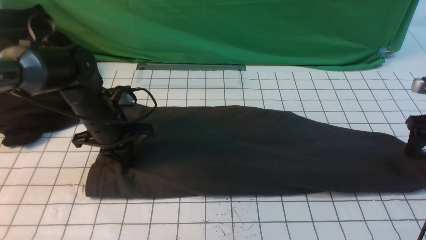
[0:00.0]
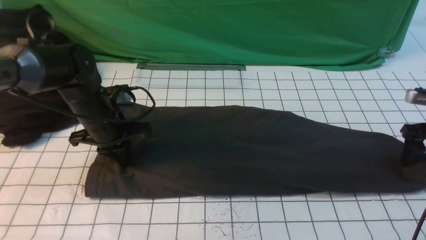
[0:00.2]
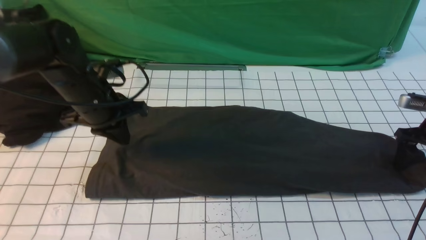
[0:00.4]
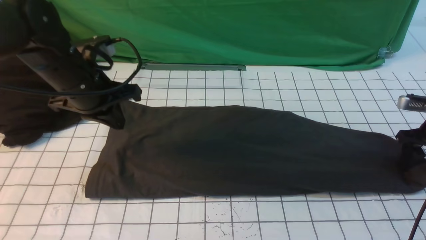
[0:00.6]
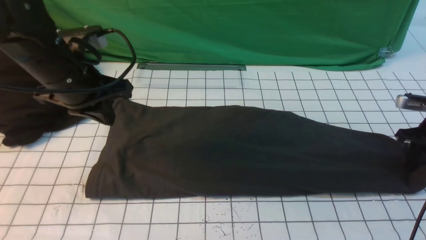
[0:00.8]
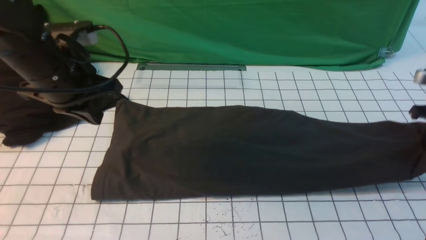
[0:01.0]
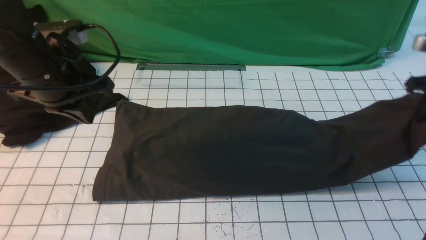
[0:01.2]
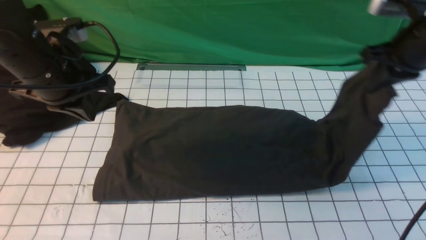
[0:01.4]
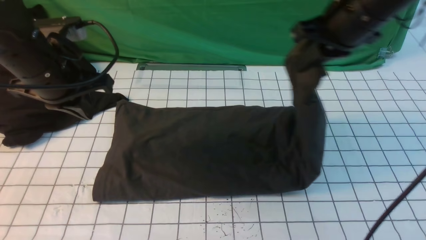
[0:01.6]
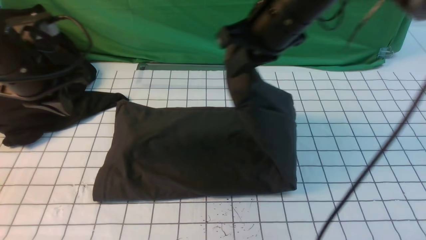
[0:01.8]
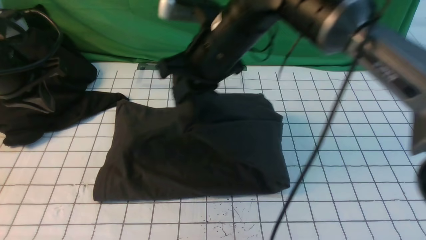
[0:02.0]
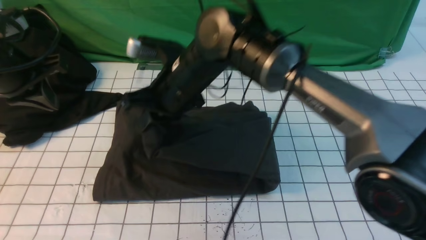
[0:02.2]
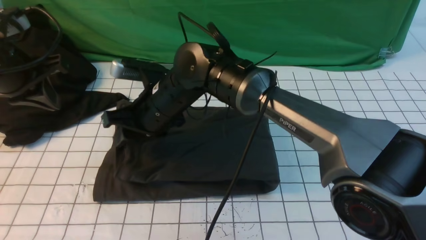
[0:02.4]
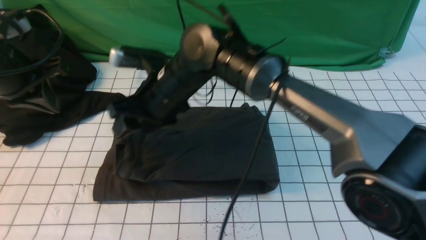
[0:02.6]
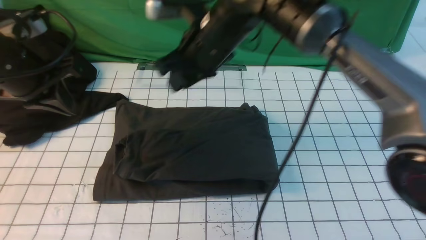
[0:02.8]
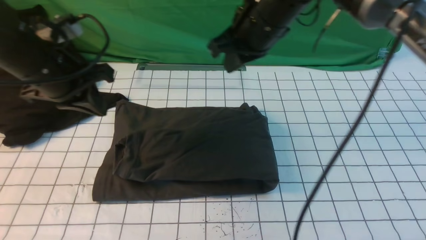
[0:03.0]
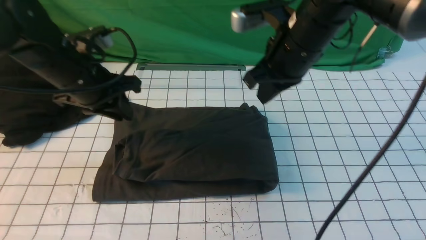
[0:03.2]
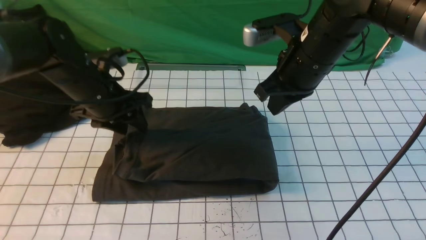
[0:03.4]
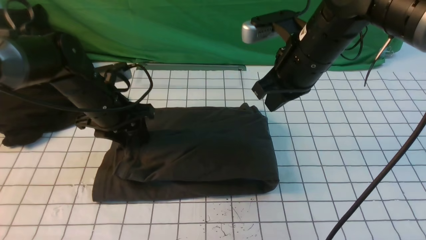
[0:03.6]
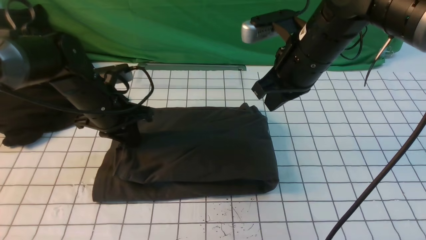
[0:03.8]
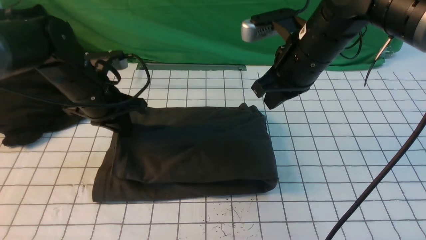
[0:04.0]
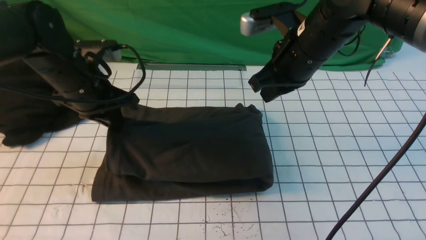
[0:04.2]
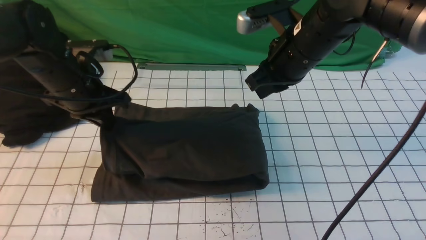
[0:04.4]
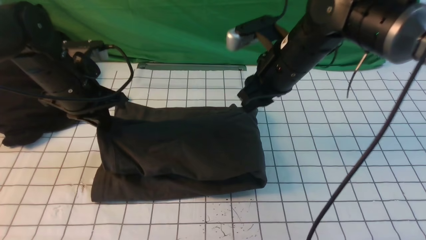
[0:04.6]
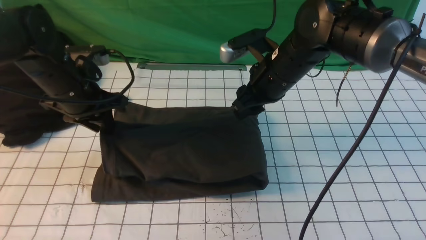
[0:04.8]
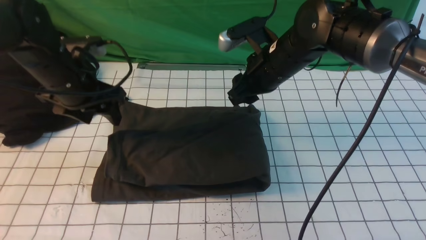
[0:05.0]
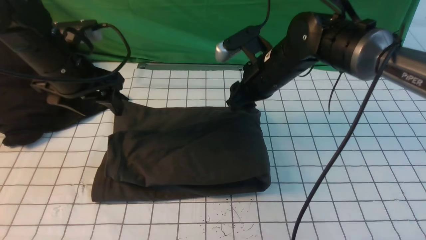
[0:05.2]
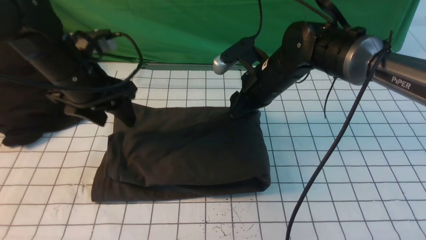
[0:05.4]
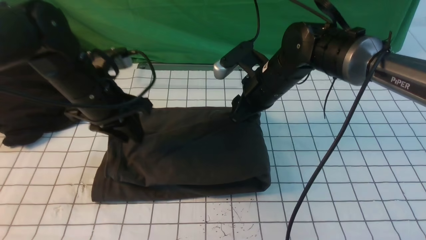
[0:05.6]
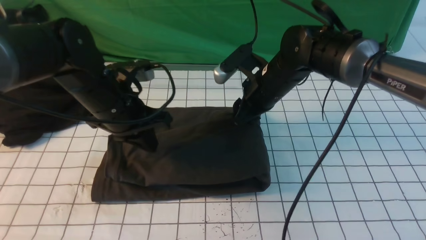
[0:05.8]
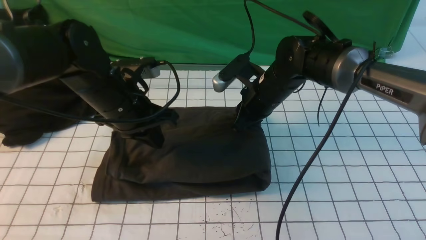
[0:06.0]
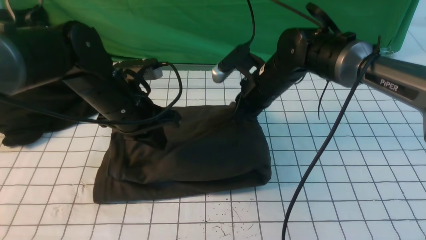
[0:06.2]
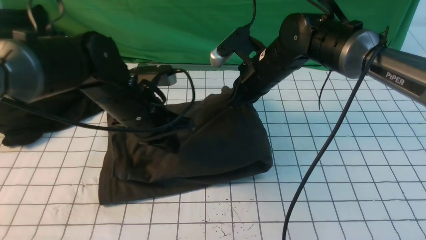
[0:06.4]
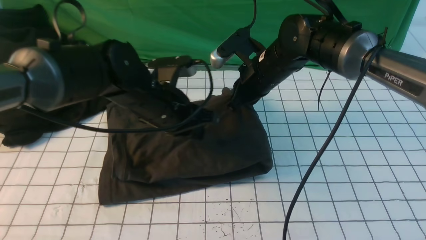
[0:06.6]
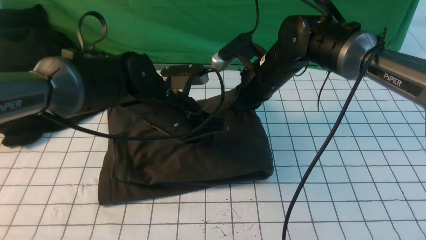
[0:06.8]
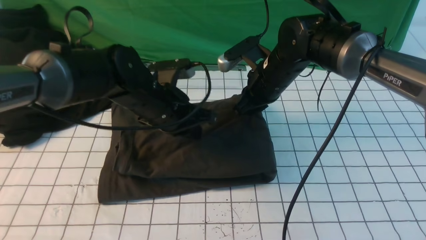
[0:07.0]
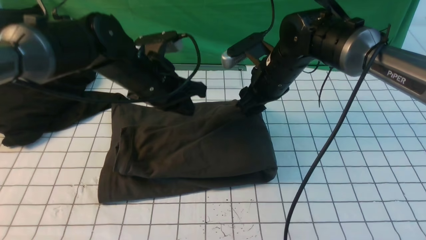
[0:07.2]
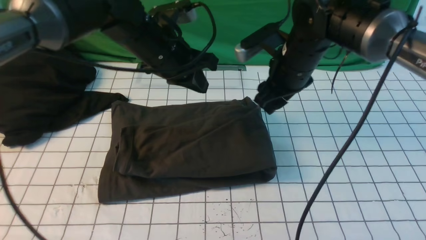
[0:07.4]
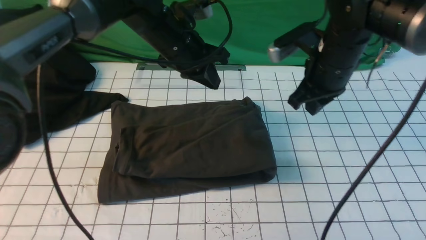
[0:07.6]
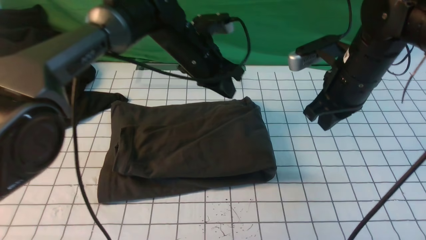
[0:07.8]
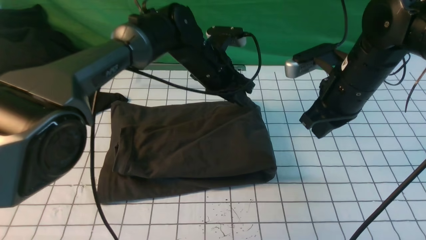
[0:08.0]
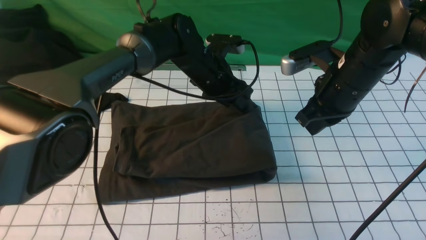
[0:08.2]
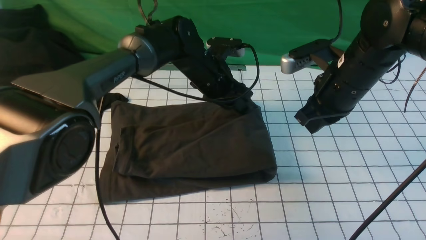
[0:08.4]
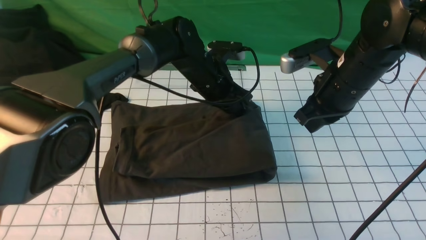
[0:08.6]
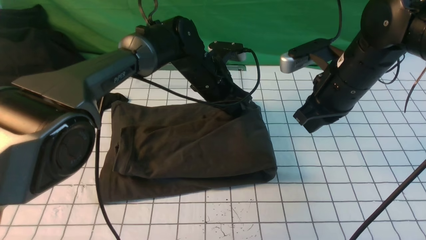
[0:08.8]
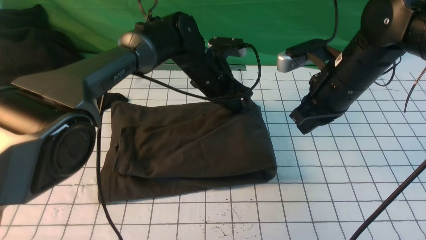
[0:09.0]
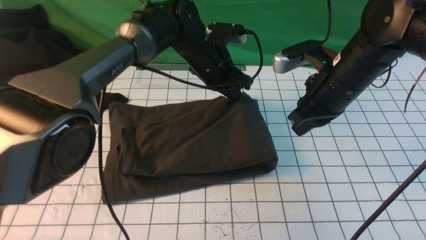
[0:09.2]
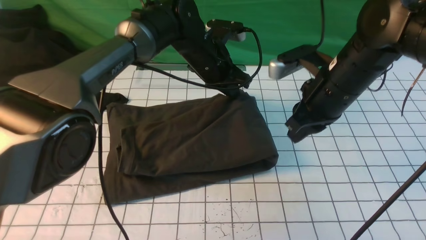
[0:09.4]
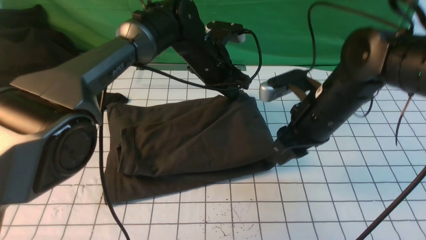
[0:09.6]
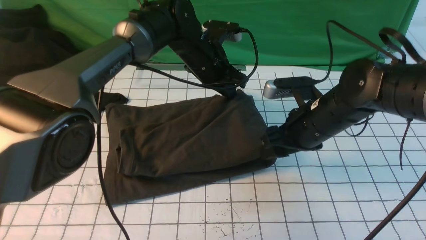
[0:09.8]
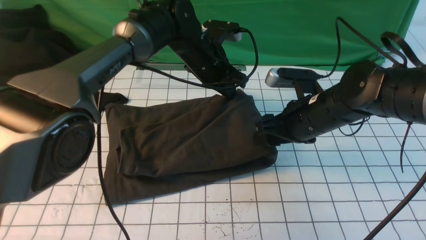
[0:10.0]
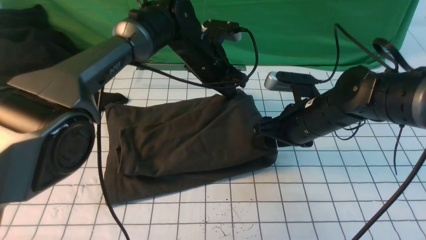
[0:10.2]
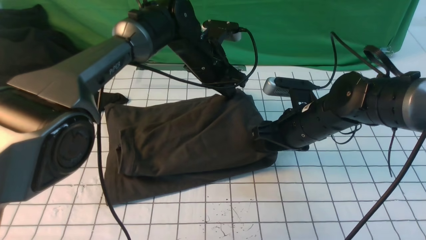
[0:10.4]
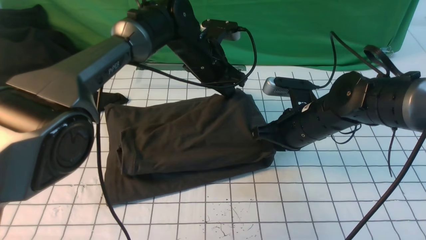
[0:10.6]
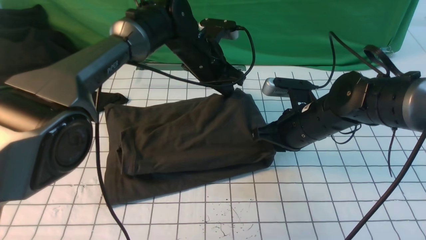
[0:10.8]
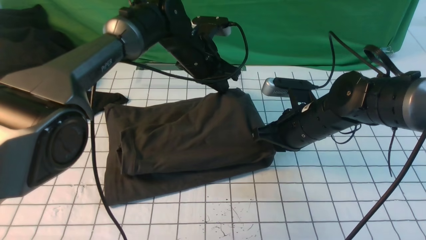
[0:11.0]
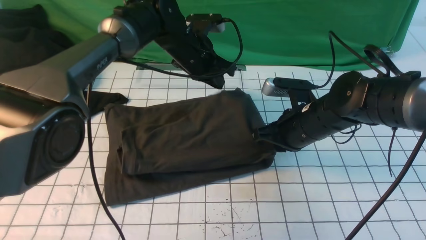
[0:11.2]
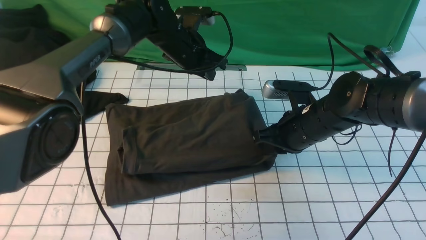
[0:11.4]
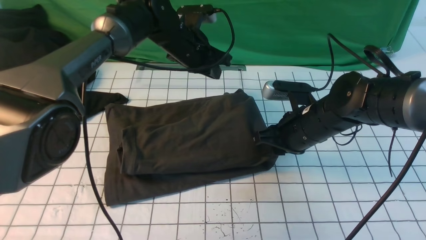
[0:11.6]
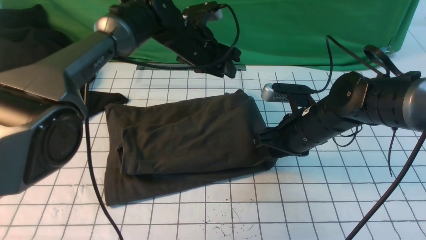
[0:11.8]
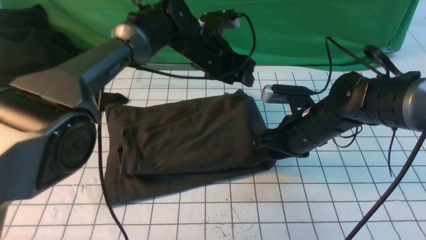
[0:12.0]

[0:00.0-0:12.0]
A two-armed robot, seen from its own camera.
Step, 0:01.2 to 0:02.6: use the right arm to drag the right edge of the fabric to the left and folds it over the left edge.
0:00.0 to 0:01.6: The right gripper is displaced to the left and upward by about 30 cm, and closes, while the left gripper heads upward, covering some 15 cm.
0:01.6 to 0:03.0: The right gripper travels to the left by approximately 10 cm, and opens, then closes again.
0:03.0 to 0:04.4: The left gripper opens, then closes again. The right gripper moves approximately 5 cm.
0:04.4 to 0:06.0: The left gripper heads to the right, covering approximately 5 cm, and opens and closes again, while the right gripper goes roughly 10 cm downward, and opens and closes again.
0:06.0 to 0:07.6: The left gripper heads forward and to the right, covering approximately 10 cm. The right gripper goes approximately 10 cm to the right and upward.
0:07.6 to 0:09.0: The left gripper shifts about 5 cm downward, and opens, then closes again.
0:09.0 to 0:10.4: The right gripper moves downward, approximately 10 cm, and opens.
0:10.4 to 0:12.0: The right gripper closes, then opens again; the left gripper opens up.

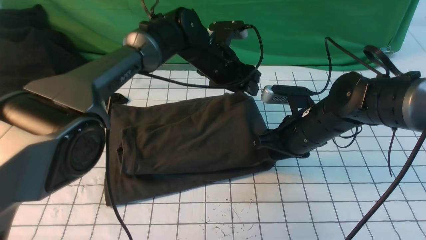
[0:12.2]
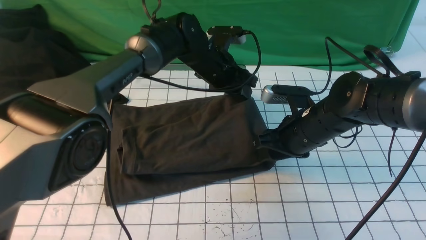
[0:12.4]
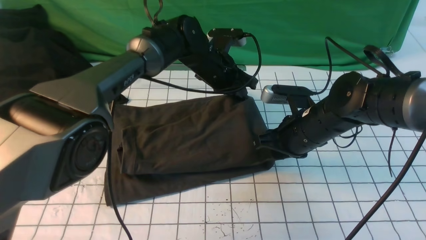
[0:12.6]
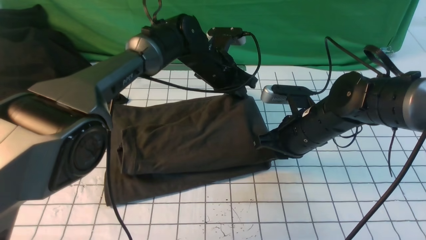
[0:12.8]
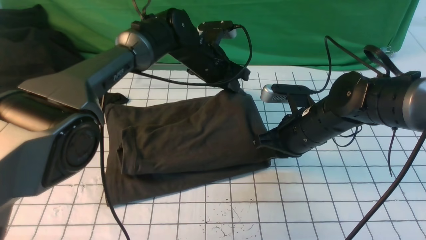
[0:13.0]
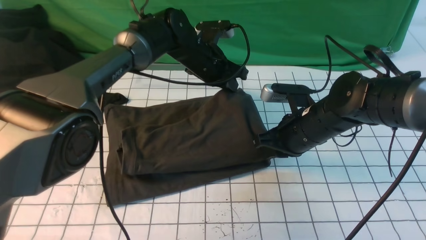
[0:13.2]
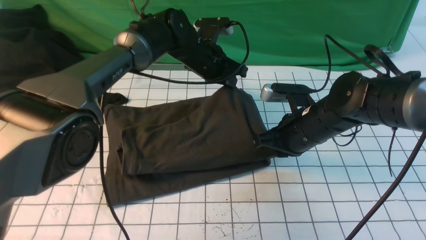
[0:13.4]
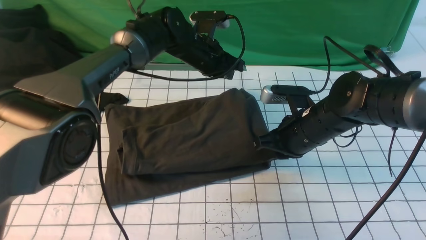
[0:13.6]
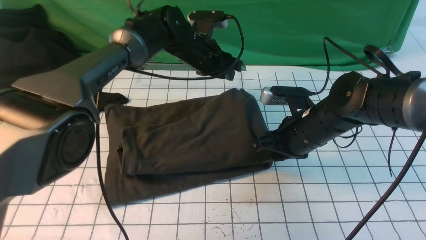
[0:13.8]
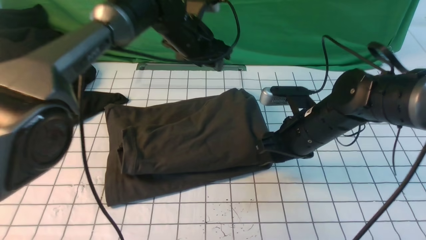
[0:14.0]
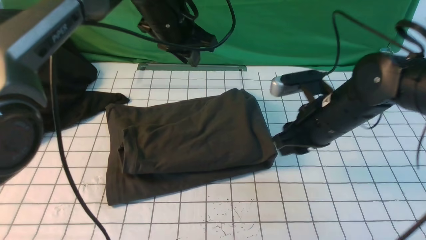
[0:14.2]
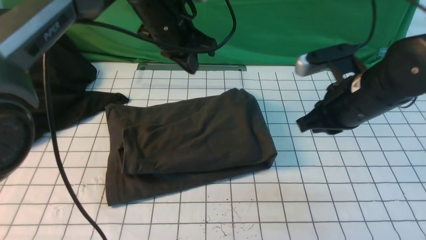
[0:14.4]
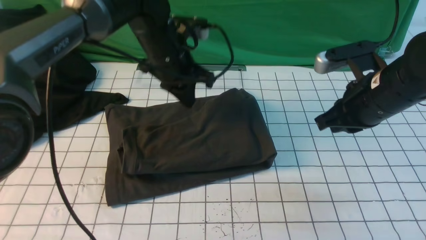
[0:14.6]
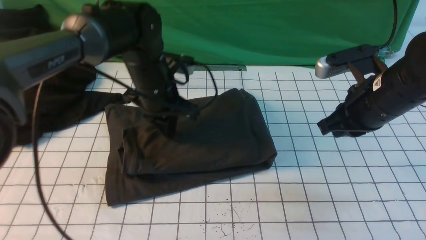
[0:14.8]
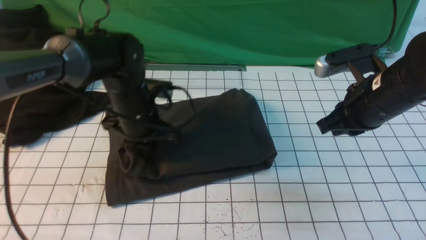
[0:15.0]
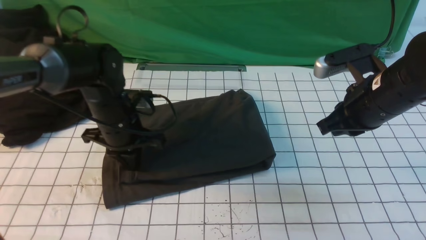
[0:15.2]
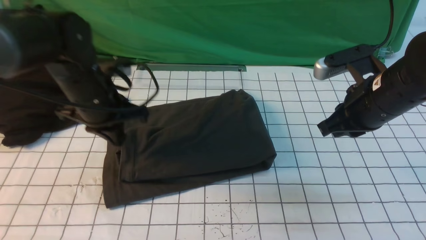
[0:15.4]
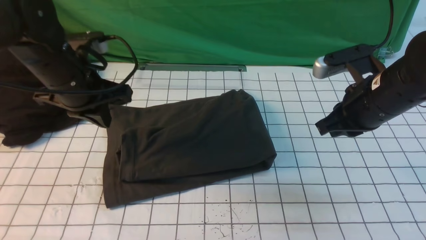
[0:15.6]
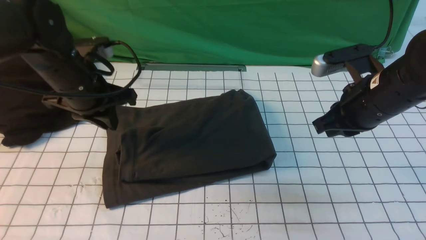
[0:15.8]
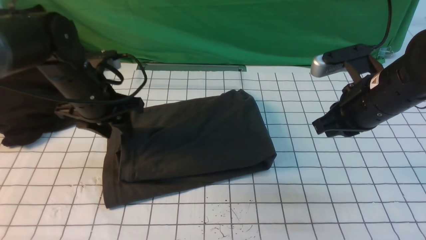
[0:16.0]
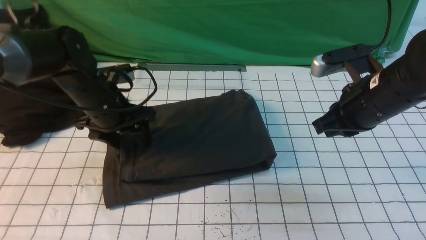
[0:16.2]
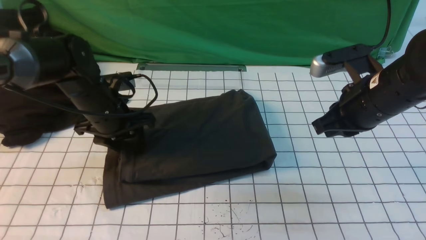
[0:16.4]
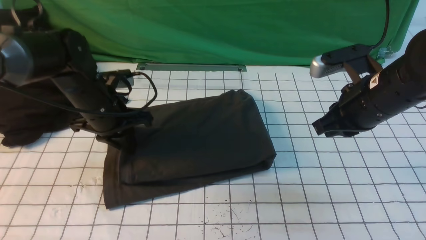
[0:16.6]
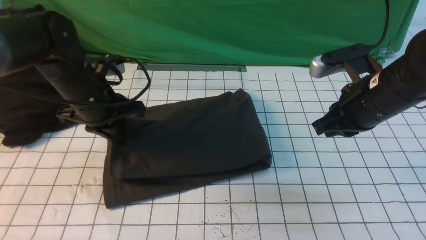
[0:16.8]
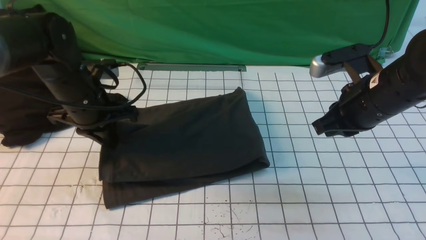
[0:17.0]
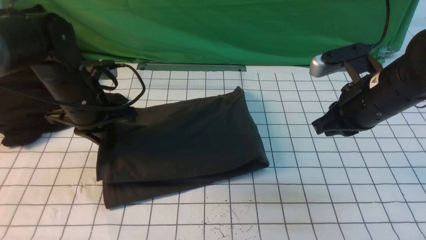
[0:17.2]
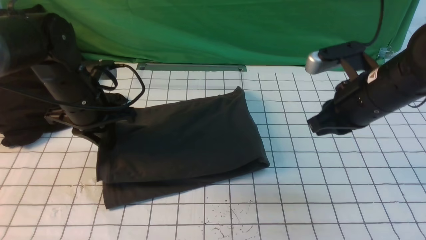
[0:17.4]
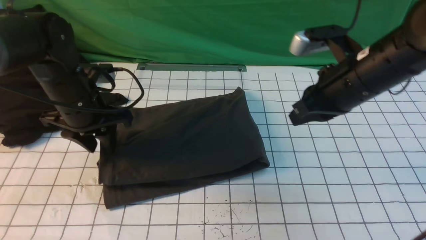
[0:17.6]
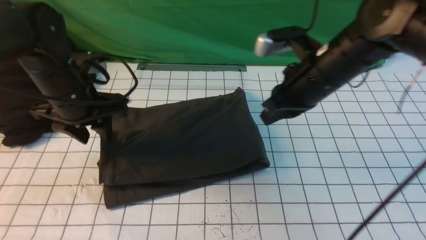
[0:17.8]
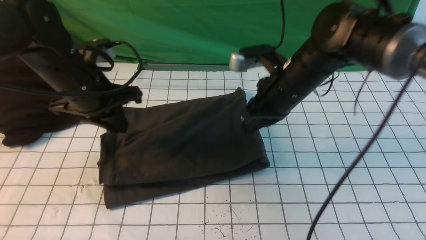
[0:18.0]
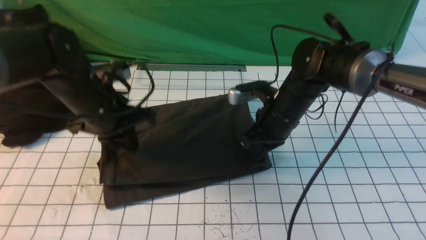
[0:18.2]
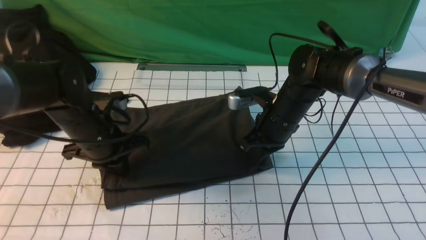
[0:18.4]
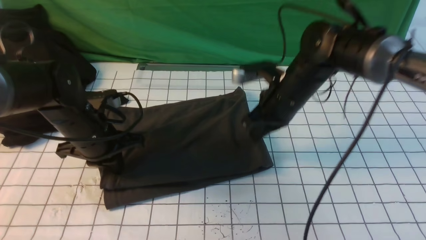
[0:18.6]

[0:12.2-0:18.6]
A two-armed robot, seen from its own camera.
0:12.2 to 0:13.8: The left gripper closes, then reopens. Meanwhile the right gripper closes and opens again.
0:13.8 to 0:15.4: The right gripper travels upward and to the right by about 10 cm, and closes up. Meanwhile the left gripper moves backward and to the left, about 20 cm, and closes.
0:15.4 to 0:17.0: The left gripper opens, then closes once more.
0:17.0 to 0:18.6: The right gripper goes some 15 cm to the left and forward. The left gripper opens, then closes again.
